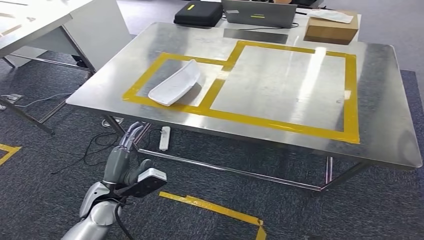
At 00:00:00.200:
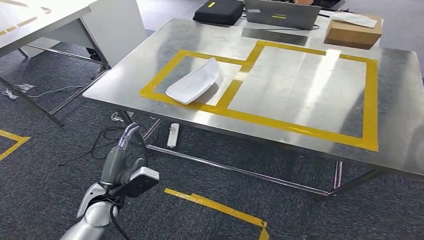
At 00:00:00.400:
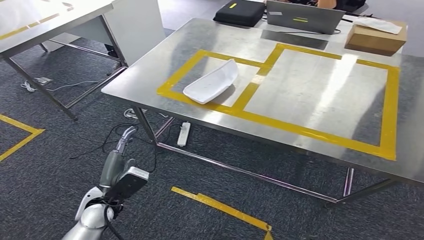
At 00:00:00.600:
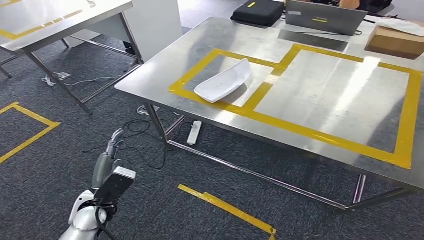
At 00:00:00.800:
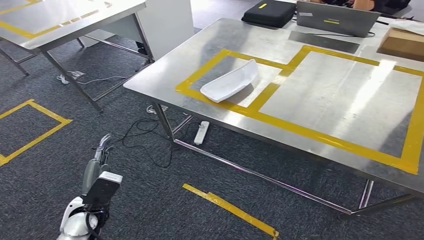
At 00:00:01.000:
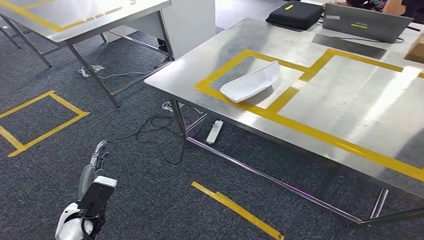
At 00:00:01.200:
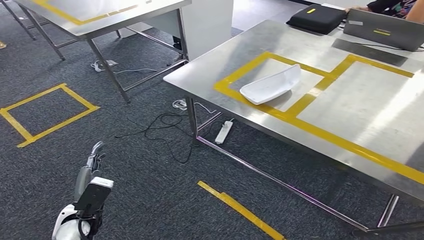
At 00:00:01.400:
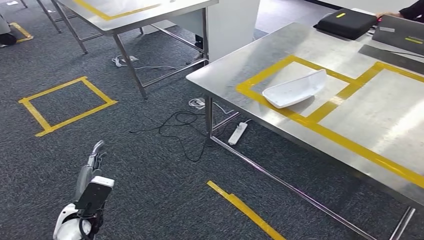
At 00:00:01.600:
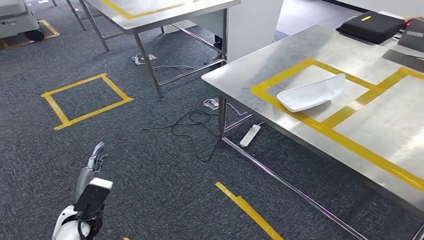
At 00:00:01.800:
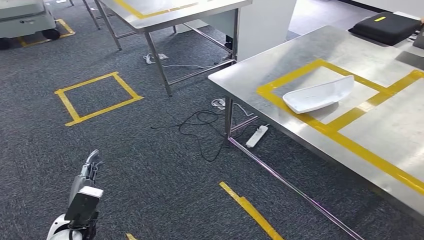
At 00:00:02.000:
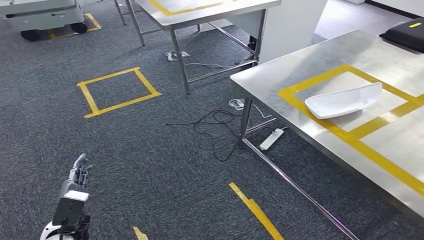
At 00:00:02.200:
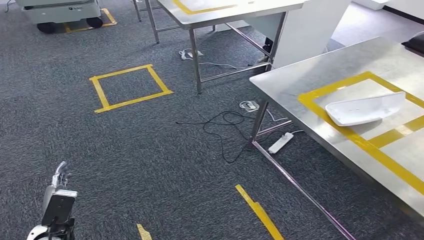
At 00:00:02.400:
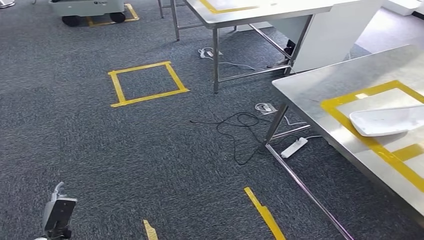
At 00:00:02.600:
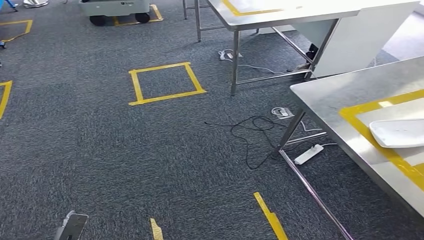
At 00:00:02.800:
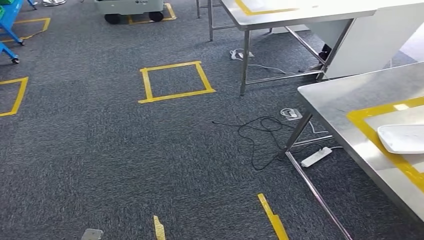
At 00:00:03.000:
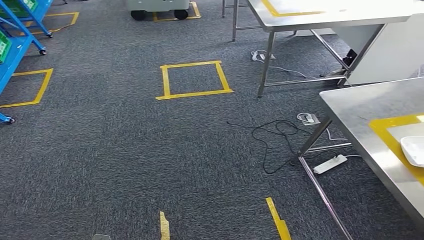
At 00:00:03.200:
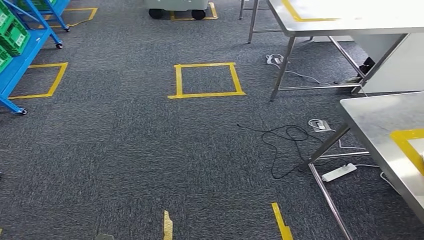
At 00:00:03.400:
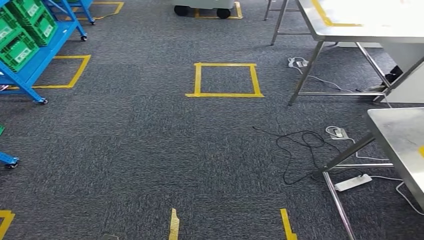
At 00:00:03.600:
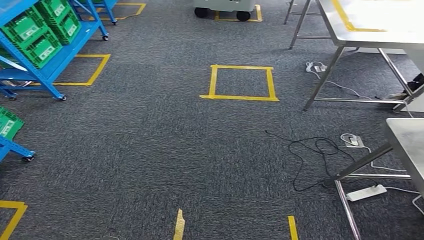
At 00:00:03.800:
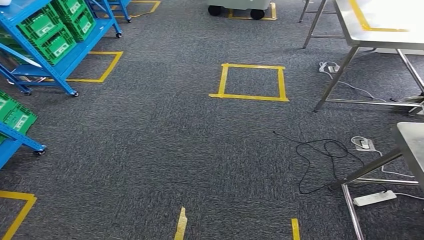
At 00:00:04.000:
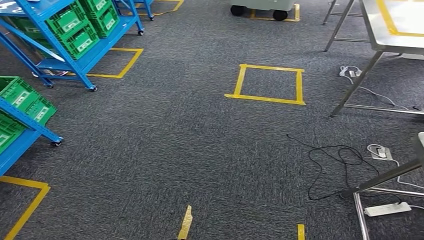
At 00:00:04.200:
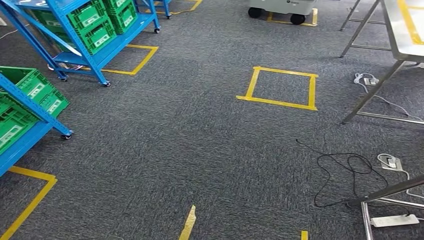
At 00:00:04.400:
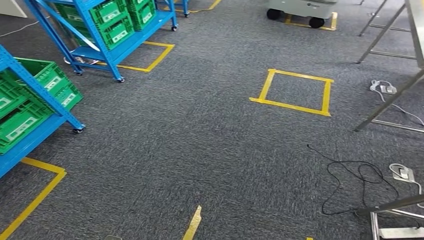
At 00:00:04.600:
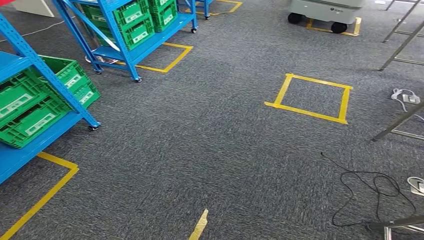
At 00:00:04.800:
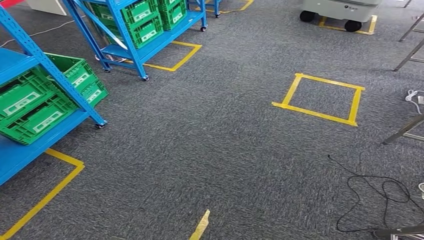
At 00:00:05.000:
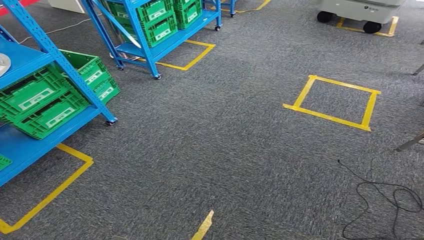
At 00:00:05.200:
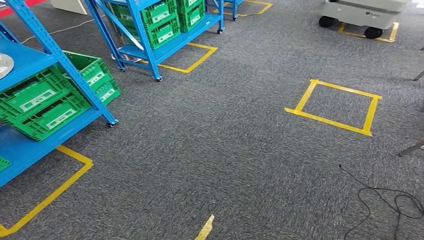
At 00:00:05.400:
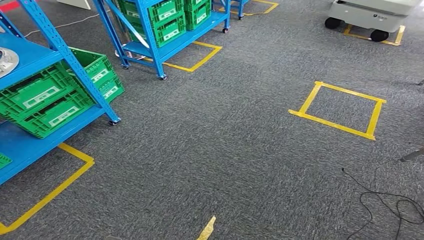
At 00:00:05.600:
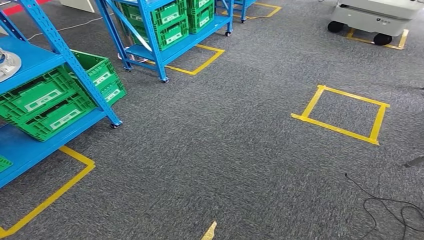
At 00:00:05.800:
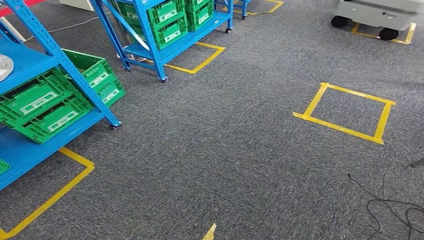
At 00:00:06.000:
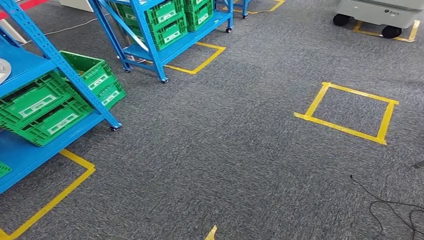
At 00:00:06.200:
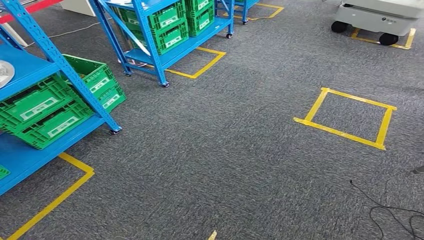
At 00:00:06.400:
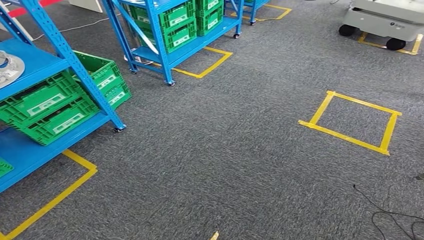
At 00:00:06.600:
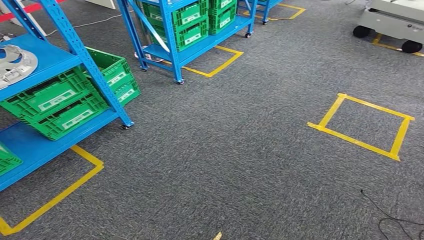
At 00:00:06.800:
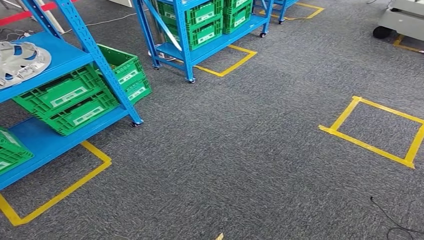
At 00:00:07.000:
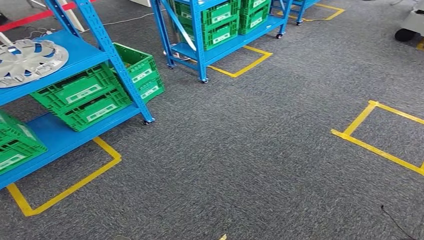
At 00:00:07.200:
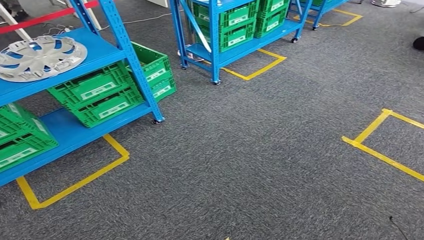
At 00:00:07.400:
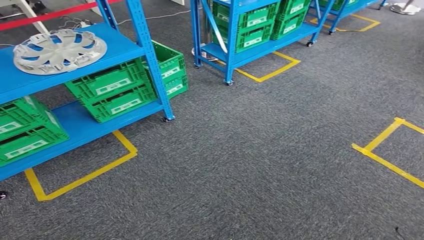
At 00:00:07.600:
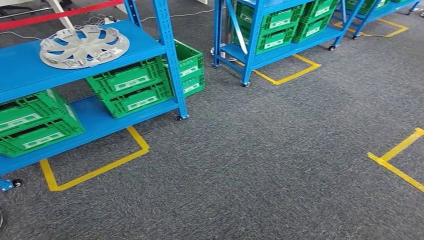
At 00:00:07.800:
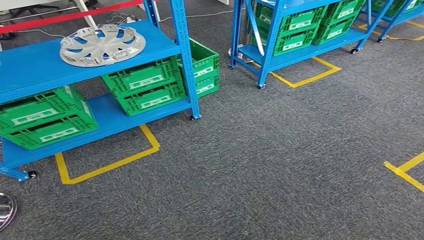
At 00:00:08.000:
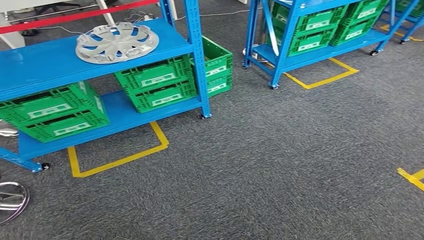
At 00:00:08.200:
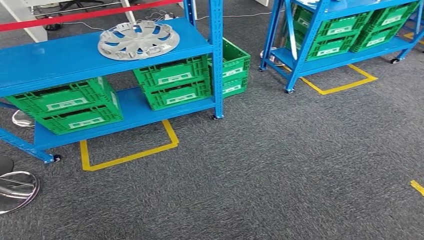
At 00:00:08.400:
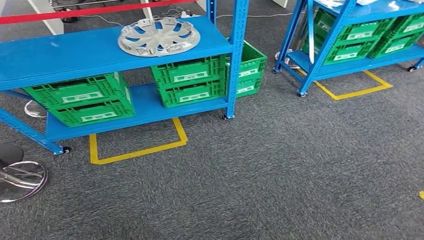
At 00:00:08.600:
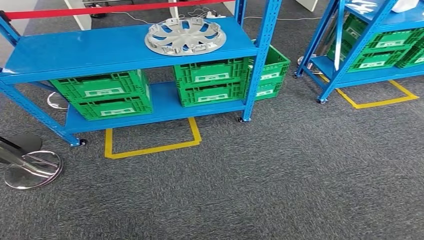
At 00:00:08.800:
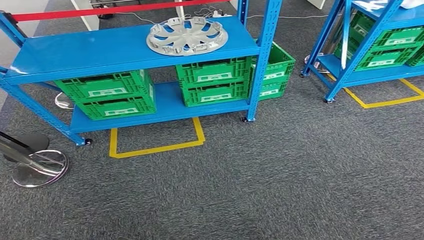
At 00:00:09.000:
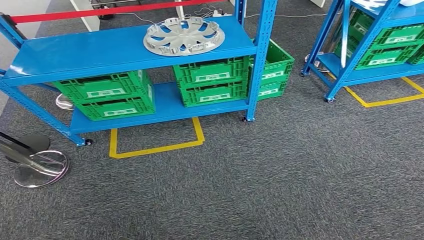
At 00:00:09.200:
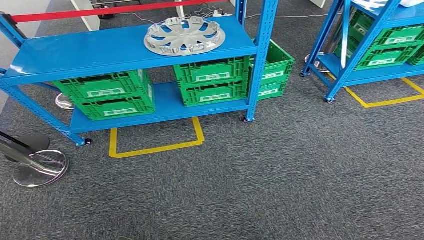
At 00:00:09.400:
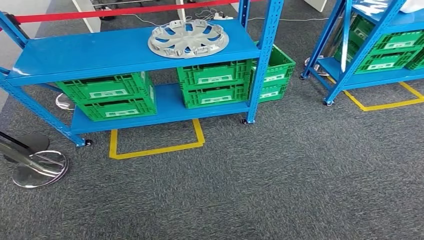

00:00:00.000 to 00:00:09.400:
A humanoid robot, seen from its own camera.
Step, 00:00:00.000 to 00:00:09.400: Return to the initial position at the workbench.
